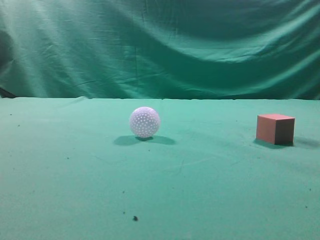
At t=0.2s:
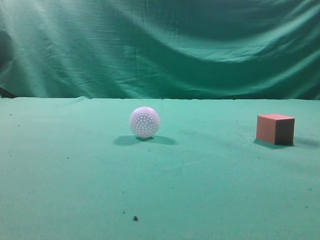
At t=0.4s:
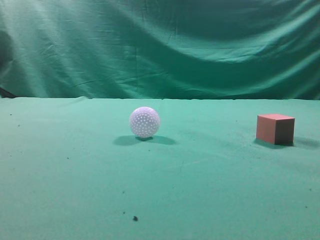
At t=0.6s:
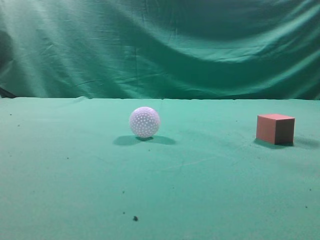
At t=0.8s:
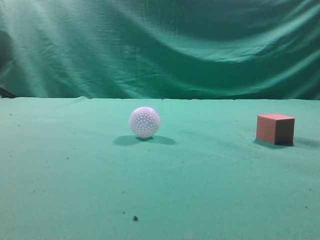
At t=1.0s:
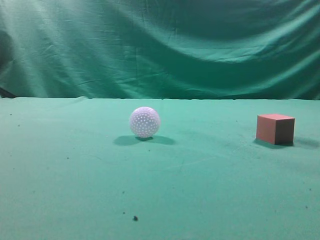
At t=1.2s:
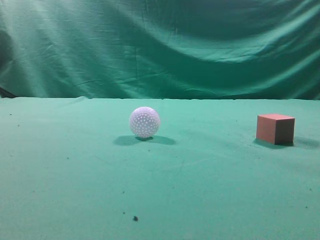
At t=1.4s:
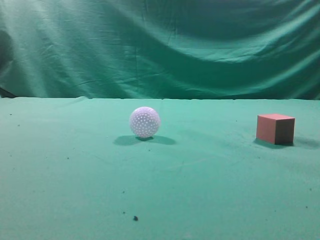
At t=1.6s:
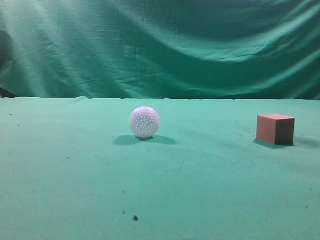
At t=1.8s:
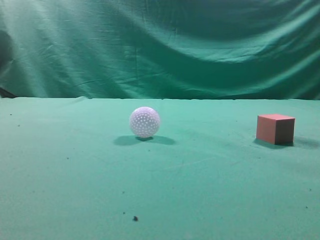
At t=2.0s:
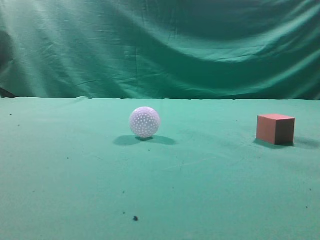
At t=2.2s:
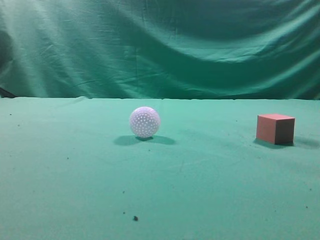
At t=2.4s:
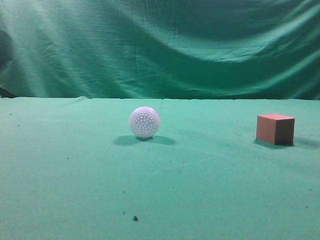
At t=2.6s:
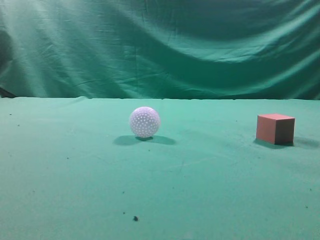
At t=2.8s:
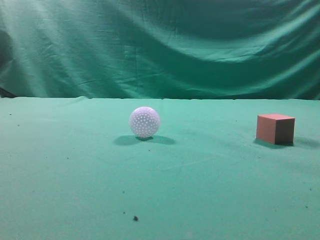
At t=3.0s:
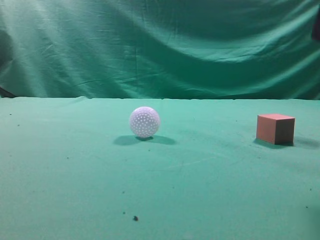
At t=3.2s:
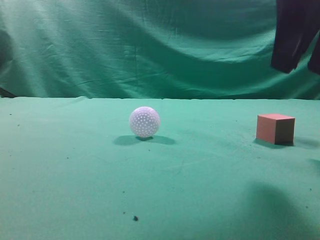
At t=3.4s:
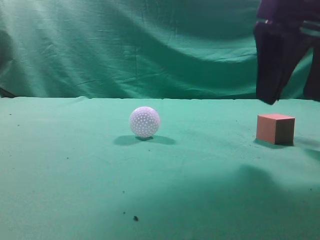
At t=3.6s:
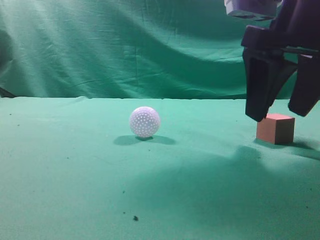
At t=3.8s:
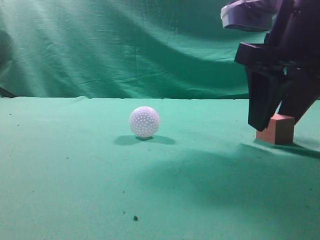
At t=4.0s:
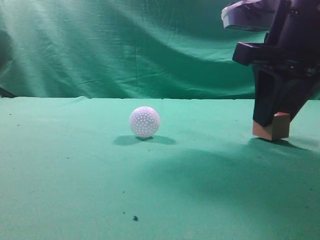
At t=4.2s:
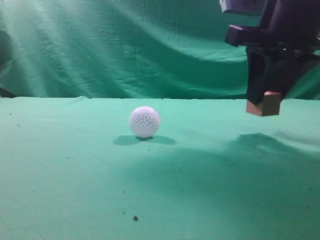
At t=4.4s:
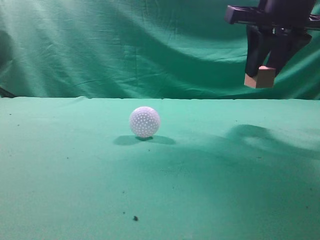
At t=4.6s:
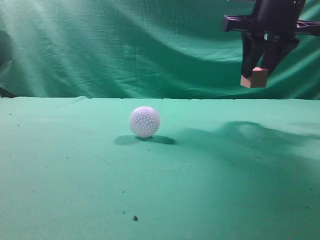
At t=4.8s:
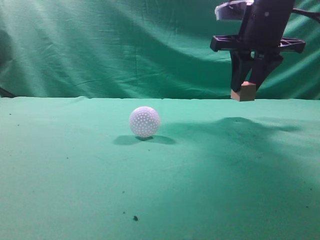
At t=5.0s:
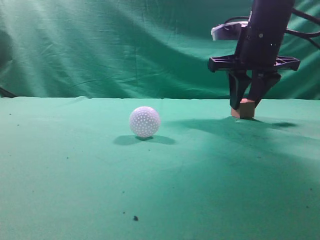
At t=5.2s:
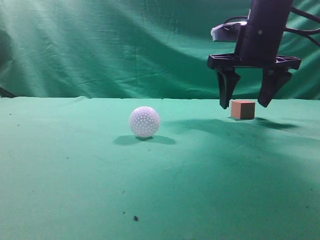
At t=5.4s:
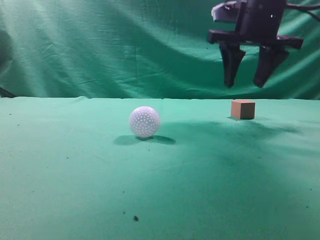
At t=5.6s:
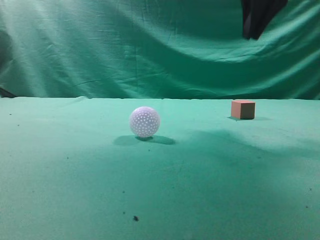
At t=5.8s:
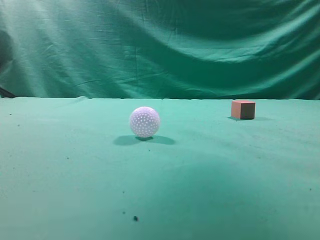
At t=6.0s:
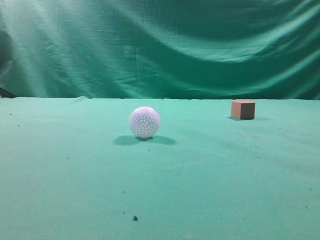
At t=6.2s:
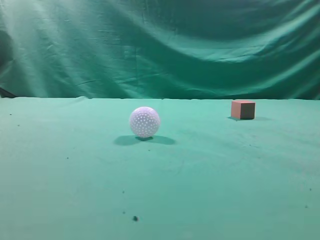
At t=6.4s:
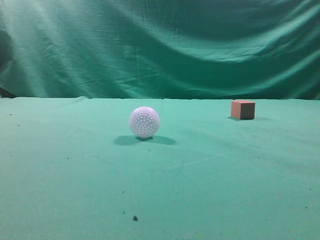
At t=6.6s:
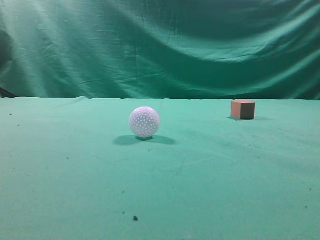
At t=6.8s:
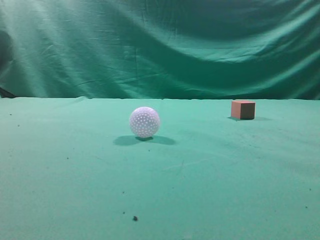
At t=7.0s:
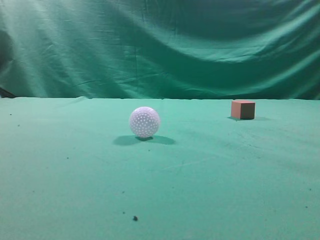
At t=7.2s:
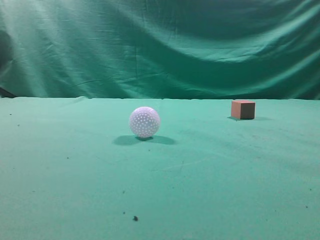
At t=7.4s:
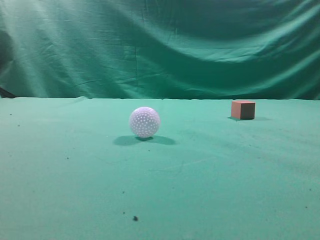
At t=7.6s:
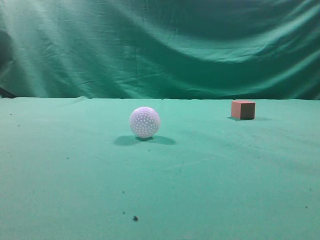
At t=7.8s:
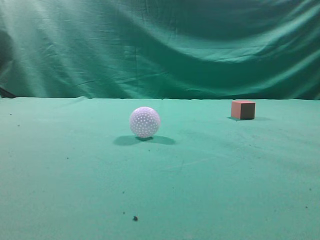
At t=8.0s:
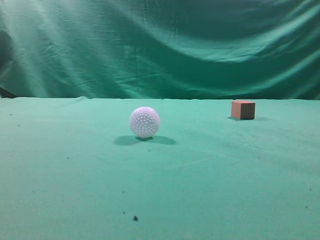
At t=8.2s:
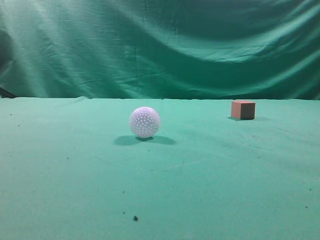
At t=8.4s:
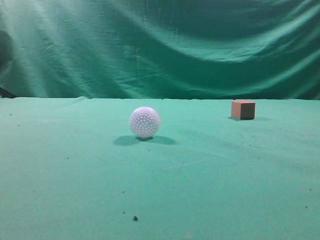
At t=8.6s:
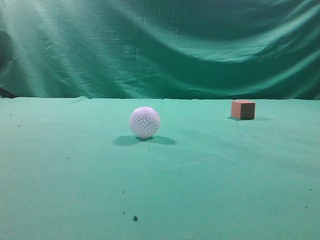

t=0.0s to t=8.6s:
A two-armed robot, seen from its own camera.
Task of the whole recording: pick up the cube block and place it in another position on the table.
Step, t=0.0s to t=4.0s: Pick up the small cube.
Step, t=4.2s to t=5.2s: Place the small cube on the ahead of the table.
t=2.8s to t=4.4s: The right gripper is displaced forward by approximately 15 cm, and opens.
t=4.4s to t=5.8s: The right gripper is displaced upward by approximately 15 cm, and closes.
t=5.8s to t=7.2s: The right gripper moves backward, approximately 20 cm.

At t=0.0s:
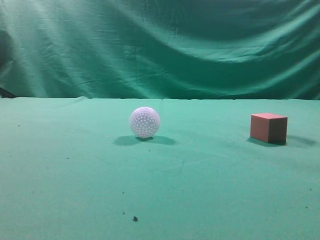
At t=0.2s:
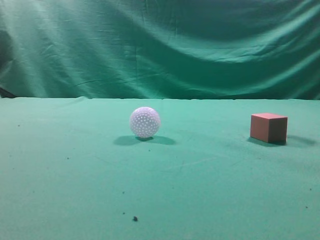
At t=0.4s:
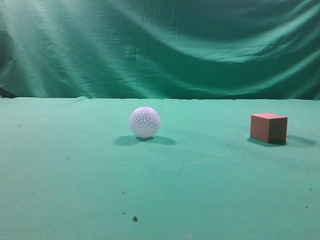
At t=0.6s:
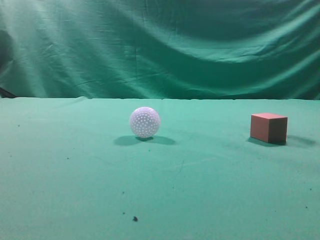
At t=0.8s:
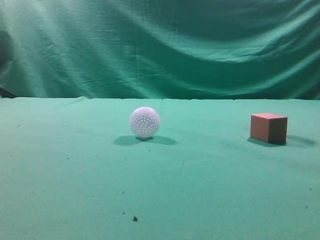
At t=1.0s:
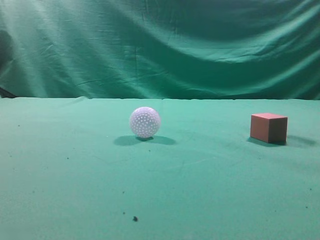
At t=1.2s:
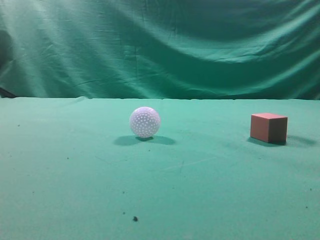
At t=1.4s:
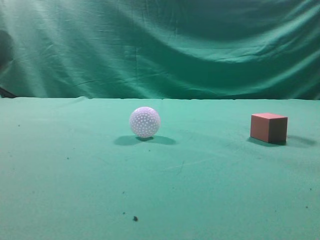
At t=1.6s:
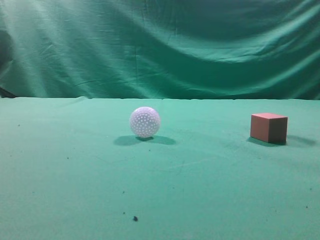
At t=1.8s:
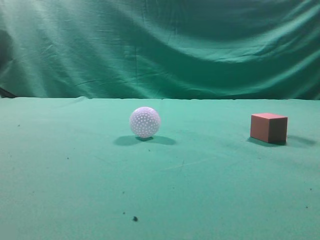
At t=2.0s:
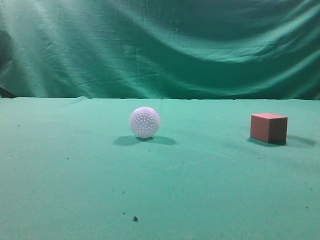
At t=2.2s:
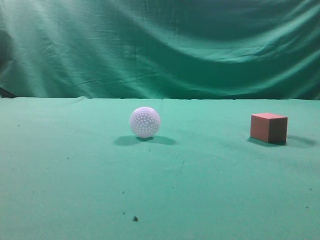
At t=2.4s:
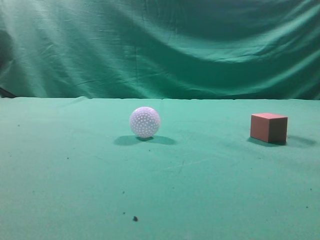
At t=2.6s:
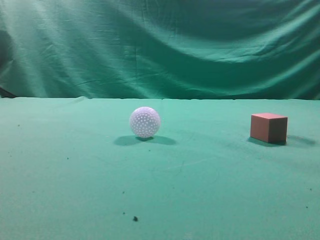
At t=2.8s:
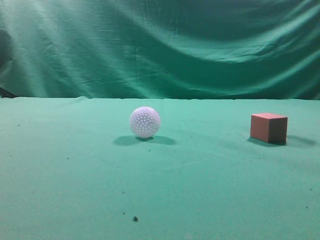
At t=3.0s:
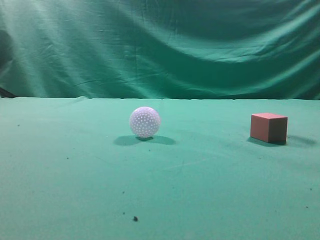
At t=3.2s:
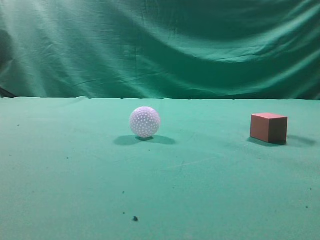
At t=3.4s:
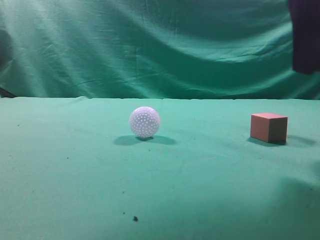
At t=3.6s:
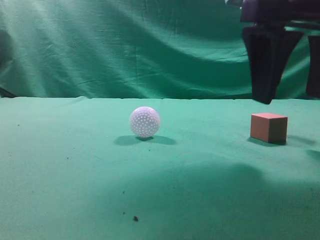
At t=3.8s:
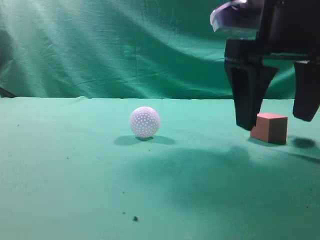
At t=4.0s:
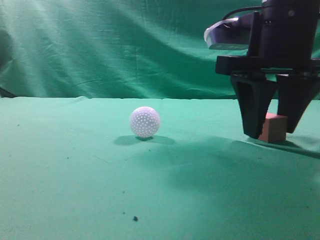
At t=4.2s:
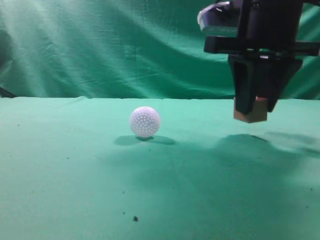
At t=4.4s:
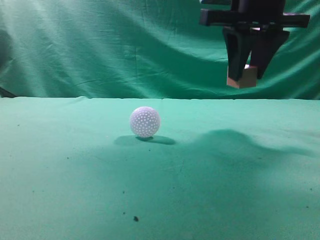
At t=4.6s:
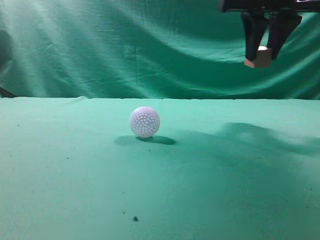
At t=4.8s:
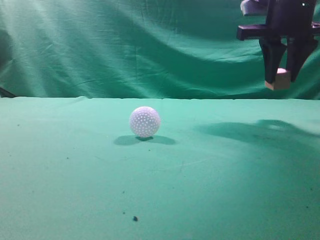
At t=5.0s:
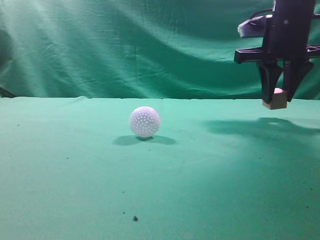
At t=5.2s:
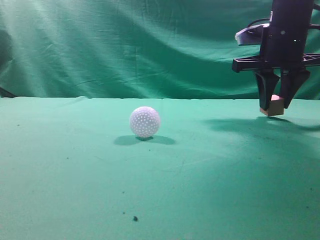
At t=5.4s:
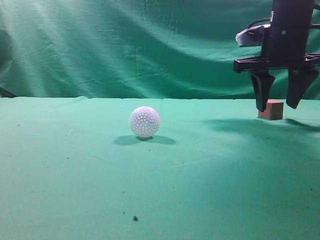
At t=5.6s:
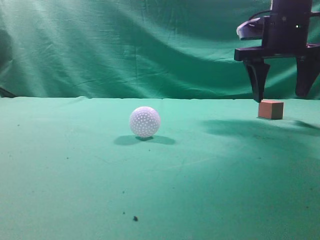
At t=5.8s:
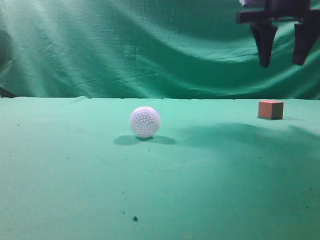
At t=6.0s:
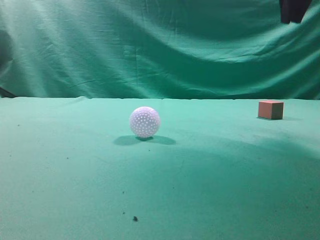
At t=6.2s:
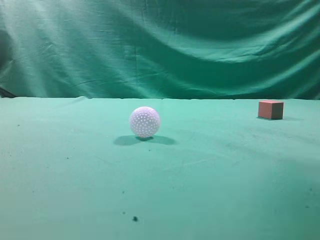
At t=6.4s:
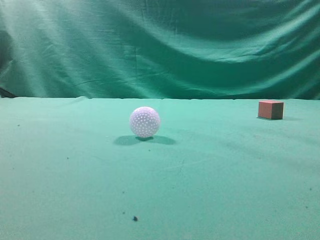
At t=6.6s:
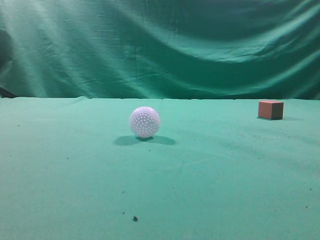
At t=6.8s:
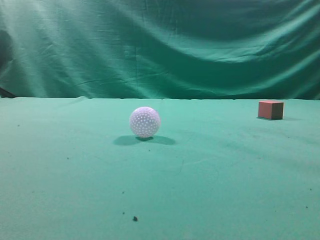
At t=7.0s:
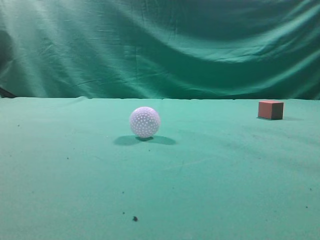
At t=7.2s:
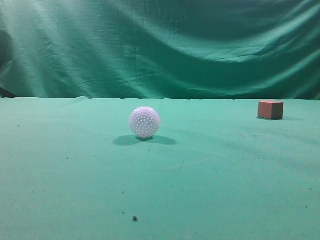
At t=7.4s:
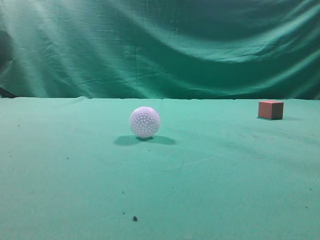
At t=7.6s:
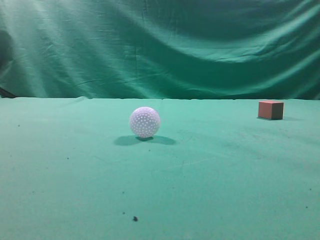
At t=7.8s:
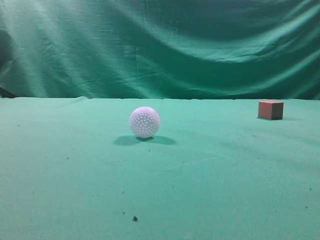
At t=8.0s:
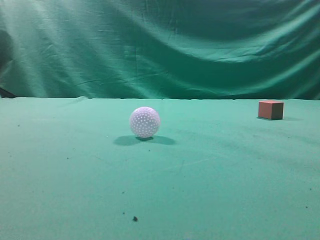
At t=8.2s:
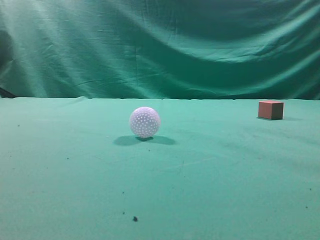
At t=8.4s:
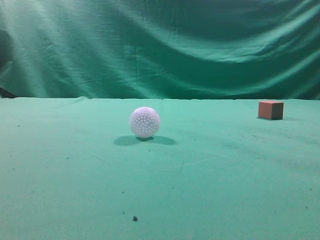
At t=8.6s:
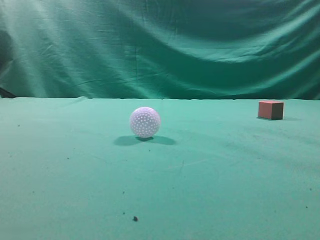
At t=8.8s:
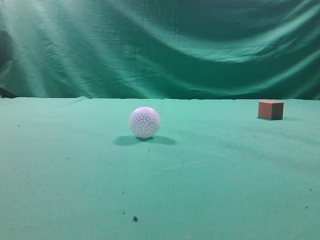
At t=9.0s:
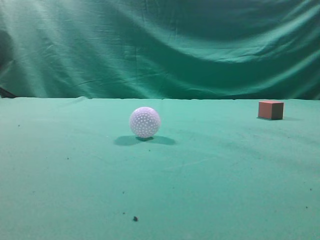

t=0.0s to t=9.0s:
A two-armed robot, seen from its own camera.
Task of the whole recording: pick up the cube block and place it in another position on the table.
Step, t=0.0s to t=4.0s: Pick up the small cube.
Step, t=4.4s to t=5.4s: Place the small cube on the ahead of the table.
t=3.0s to t=4.4s: The right gripper shifts some 20 cm forward, and opens, then closes once more.
t=4.4s to t=6.0s: The right gripper is displaced upward and to the right by approximately 10 cm, and opens and closes again.
t=6.0s to t=7.6s: The right gripper moves backward, approximately 25 cm.
